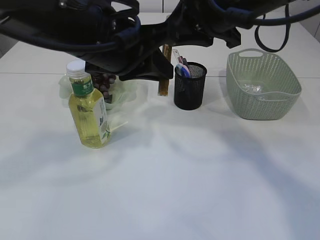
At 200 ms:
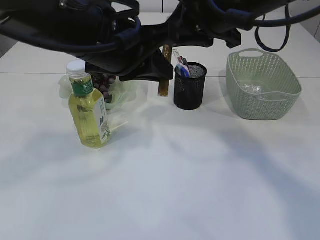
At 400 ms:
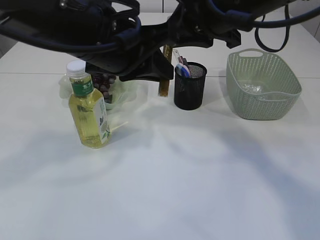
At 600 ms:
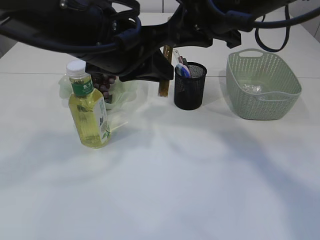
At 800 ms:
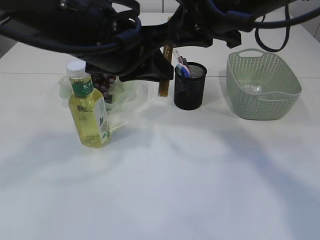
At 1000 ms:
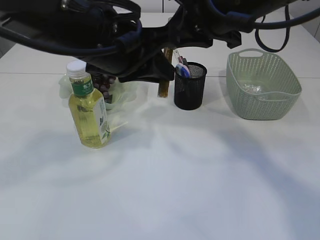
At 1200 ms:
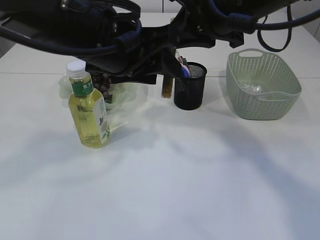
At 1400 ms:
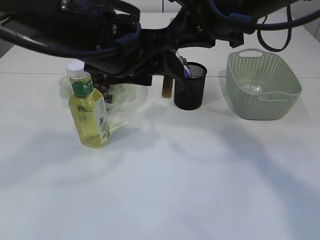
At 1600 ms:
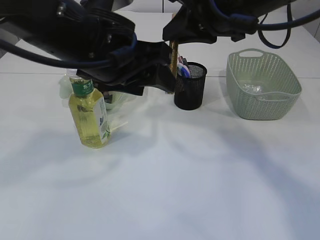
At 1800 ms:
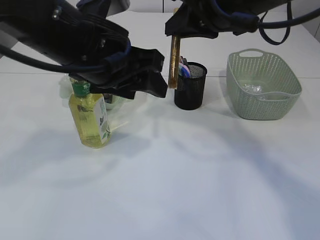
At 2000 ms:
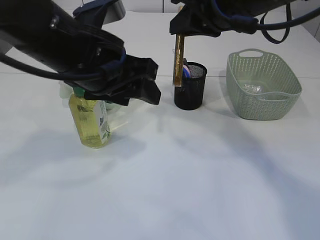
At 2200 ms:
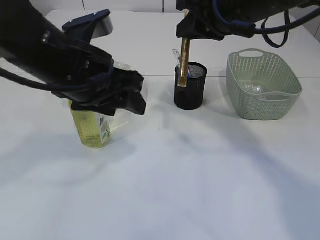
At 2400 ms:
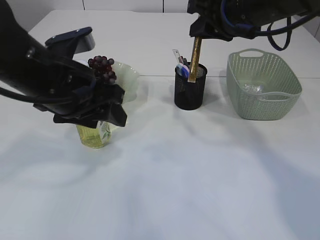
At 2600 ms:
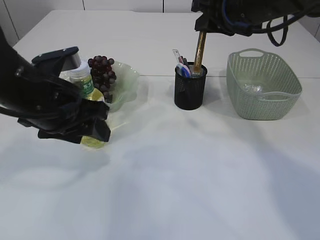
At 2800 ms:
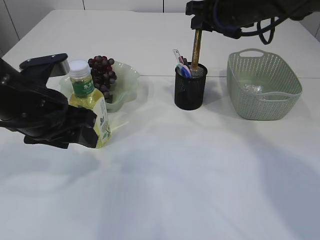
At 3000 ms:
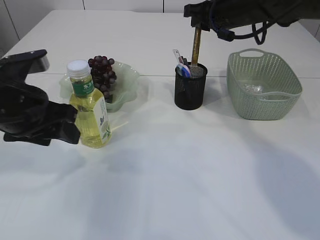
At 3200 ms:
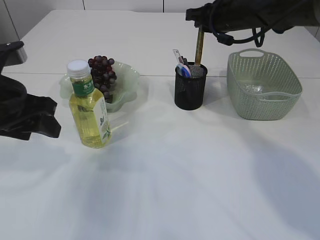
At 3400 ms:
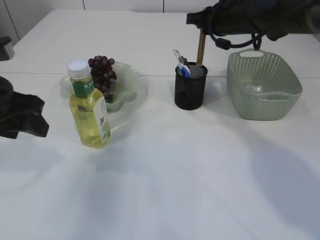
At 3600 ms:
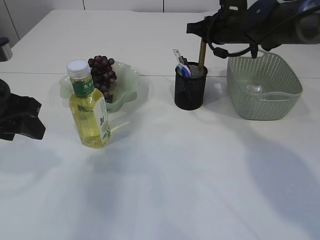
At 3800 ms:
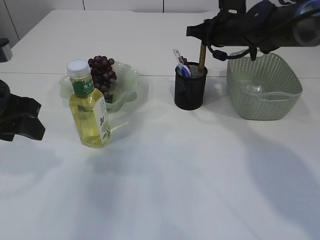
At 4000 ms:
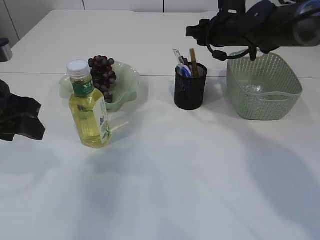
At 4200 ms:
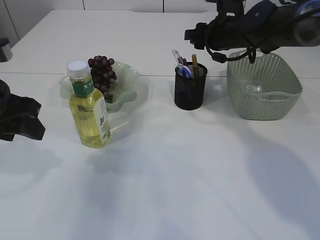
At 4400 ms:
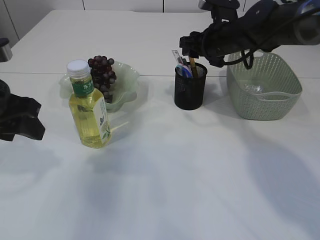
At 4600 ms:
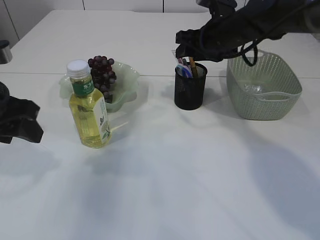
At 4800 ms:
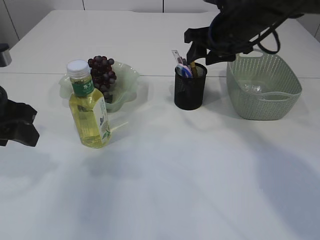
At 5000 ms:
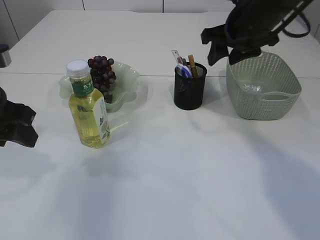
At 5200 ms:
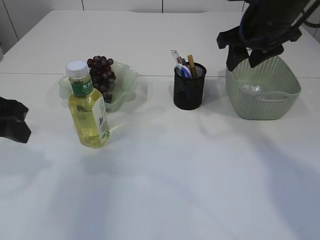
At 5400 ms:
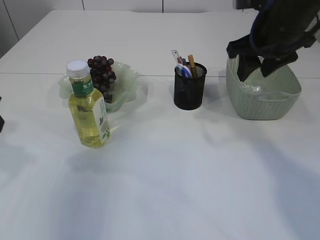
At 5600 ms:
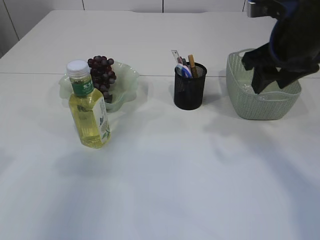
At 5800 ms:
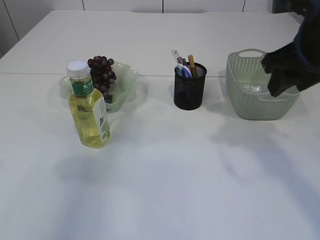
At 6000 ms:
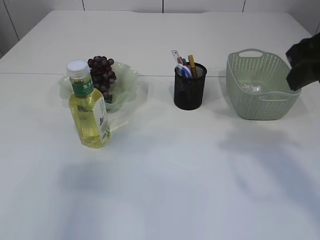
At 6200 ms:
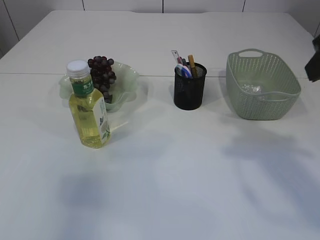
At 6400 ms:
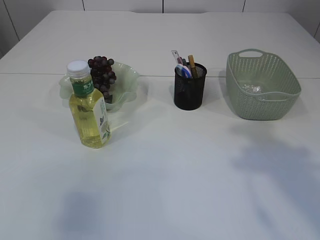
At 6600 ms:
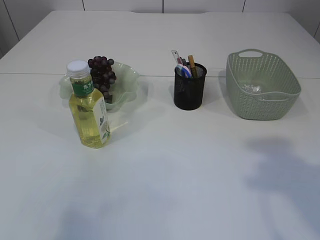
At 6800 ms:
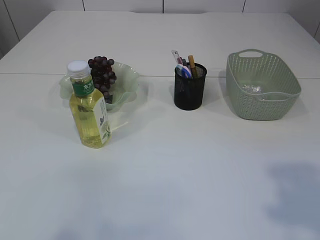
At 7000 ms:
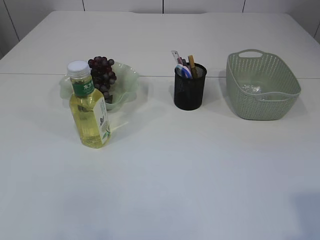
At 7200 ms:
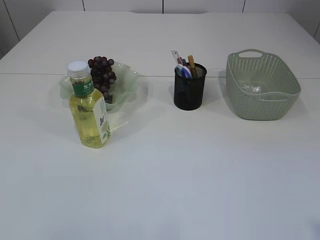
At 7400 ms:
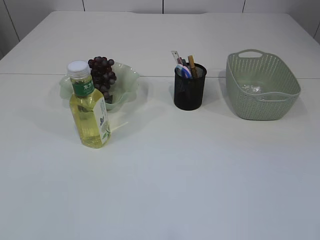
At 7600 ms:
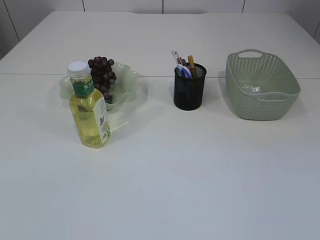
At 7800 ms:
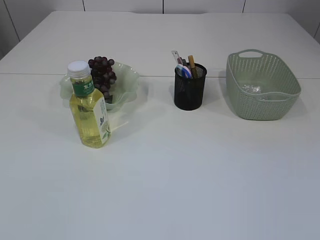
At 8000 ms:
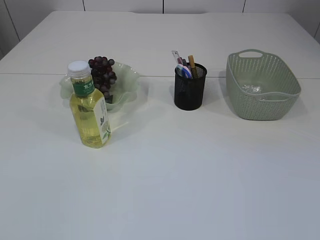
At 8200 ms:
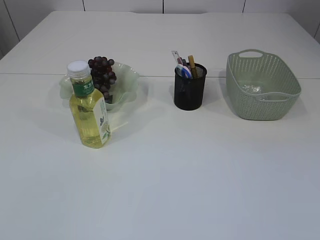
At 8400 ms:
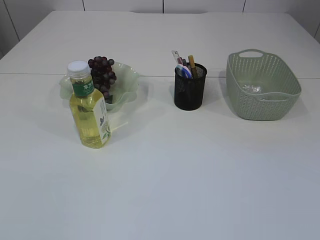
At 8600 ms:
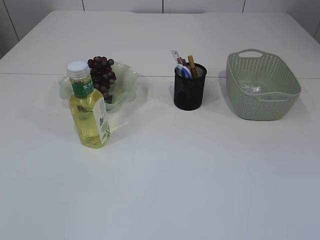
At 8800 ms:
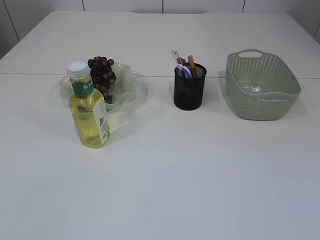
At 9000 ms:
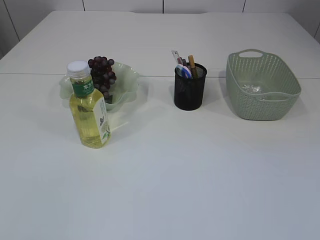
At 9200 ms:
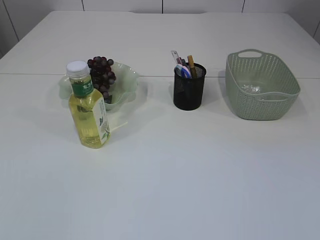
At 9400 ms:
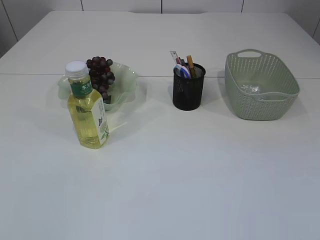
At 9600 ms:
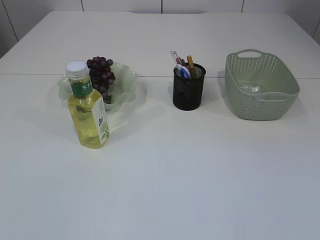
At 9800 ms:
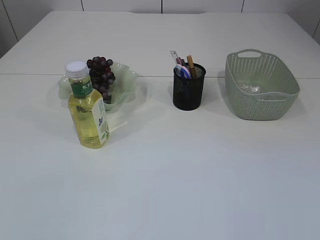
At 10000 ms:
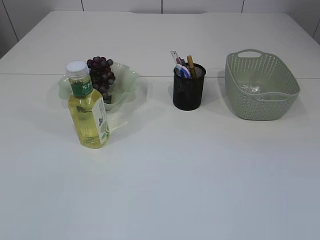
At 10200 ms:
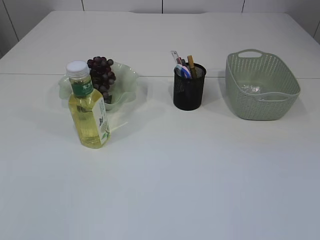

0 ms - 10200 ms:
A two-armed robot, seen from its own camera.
Step, 2000 ms - 4600 ms: place the yellow glue into the pen holder.
0 ms - 1400 ms: The left gripper opens.
1400 ms - 3000 ms: The left gripper goes some 15 cm to the left and downward. Meanwhile the right gripper shifts some 15 cm forward and downward.
3000 ms - 4400 ms: The right gripper goes roughly 5 cm downward, and opens its fingers.
4400 ms - 5800 ms: The right gripper heads backward and upward, covering some 20 cm. The left gripper is displaced to the left and upward by some 10 cm.
5800 ms - 7200 ms: Both grippers travel together backward, roughly 25 cm.
